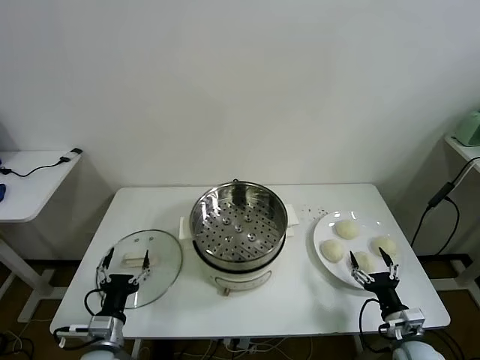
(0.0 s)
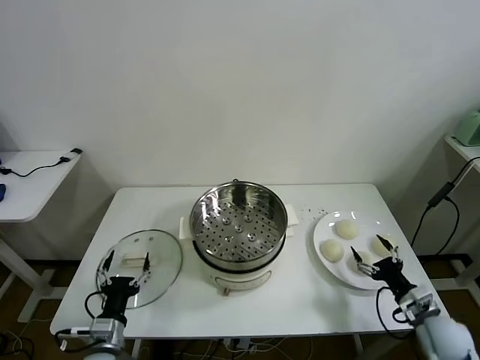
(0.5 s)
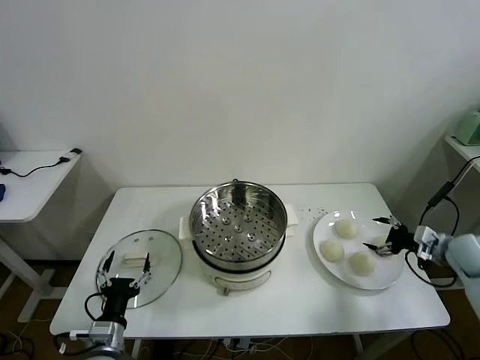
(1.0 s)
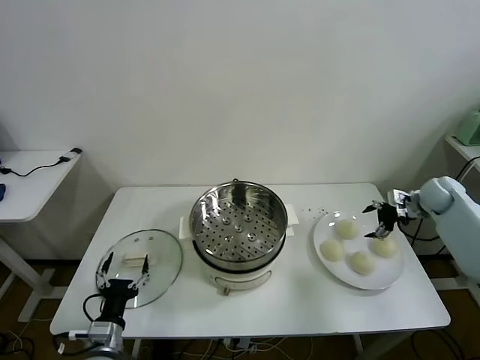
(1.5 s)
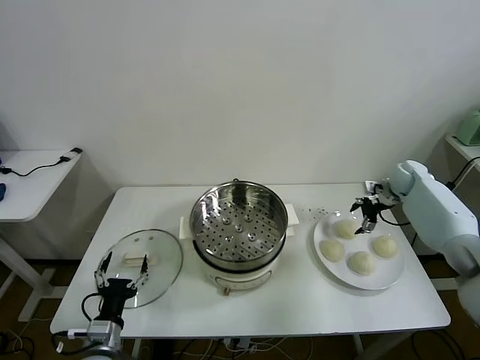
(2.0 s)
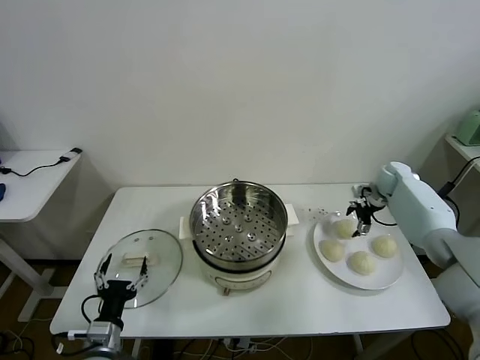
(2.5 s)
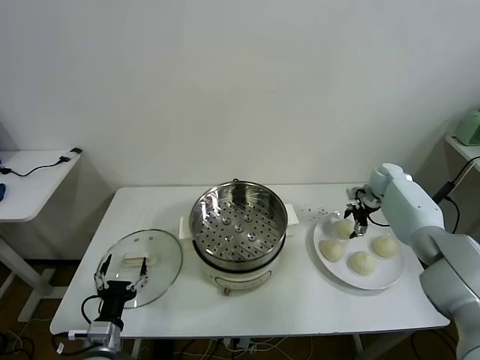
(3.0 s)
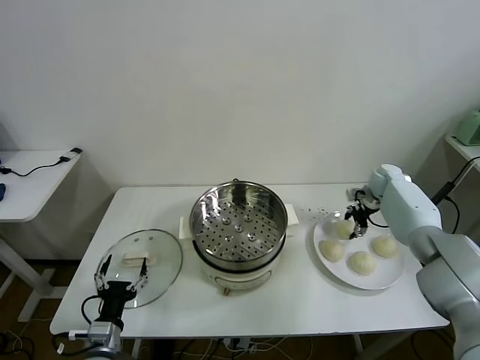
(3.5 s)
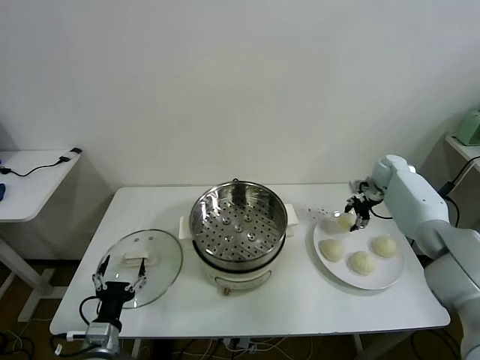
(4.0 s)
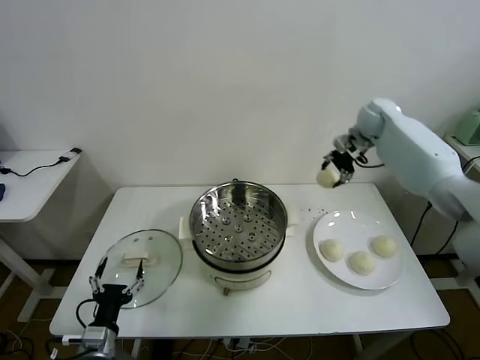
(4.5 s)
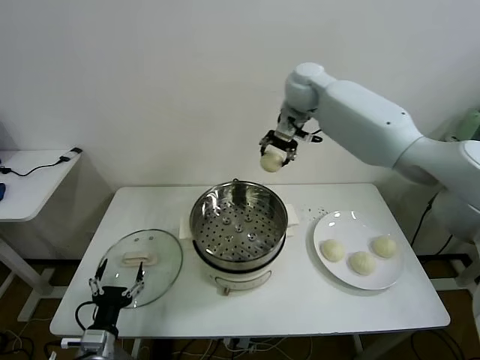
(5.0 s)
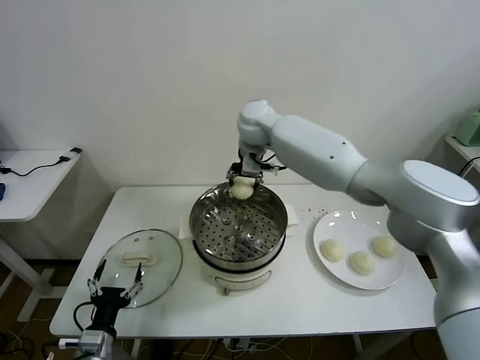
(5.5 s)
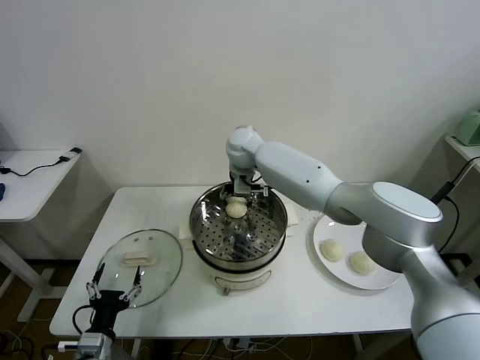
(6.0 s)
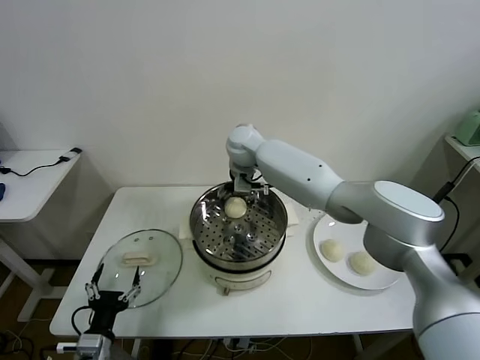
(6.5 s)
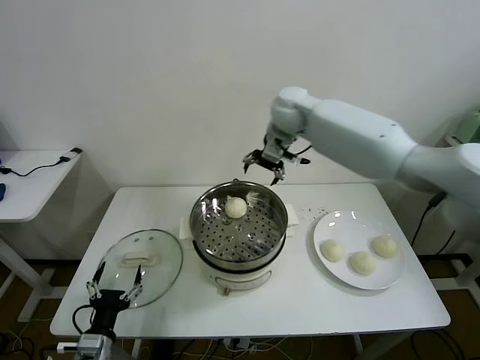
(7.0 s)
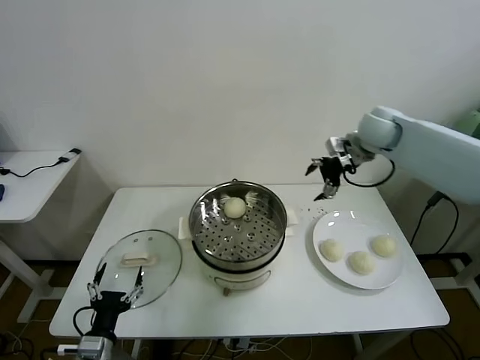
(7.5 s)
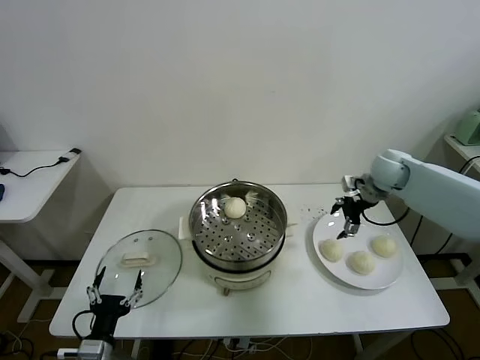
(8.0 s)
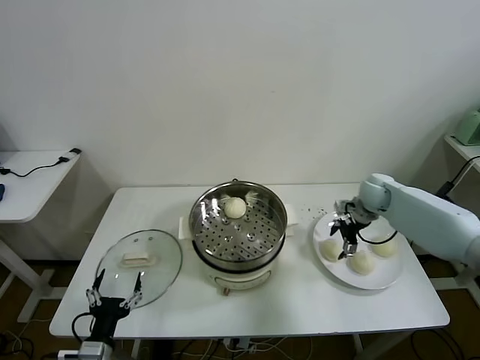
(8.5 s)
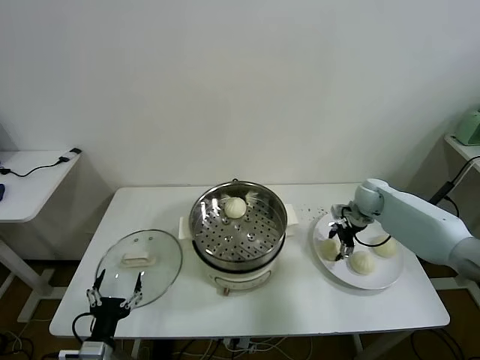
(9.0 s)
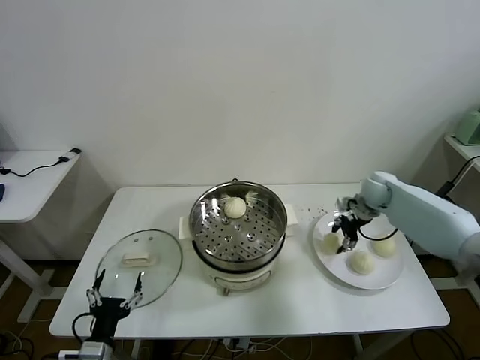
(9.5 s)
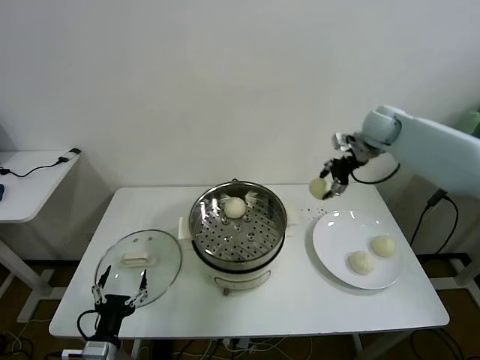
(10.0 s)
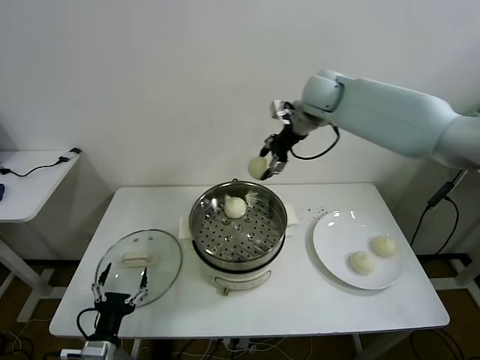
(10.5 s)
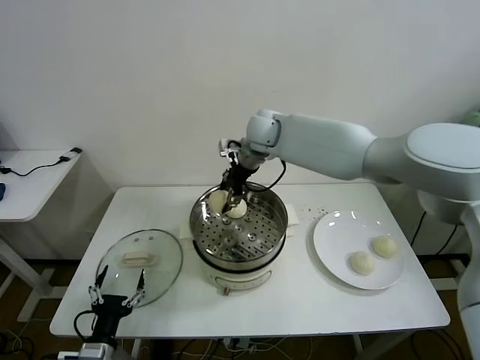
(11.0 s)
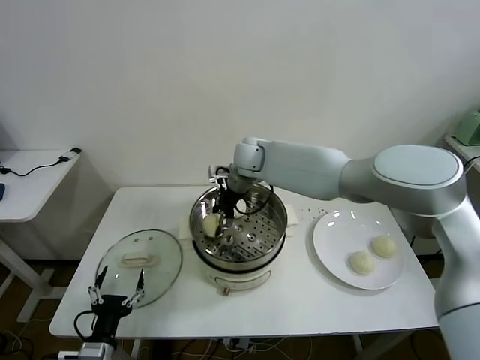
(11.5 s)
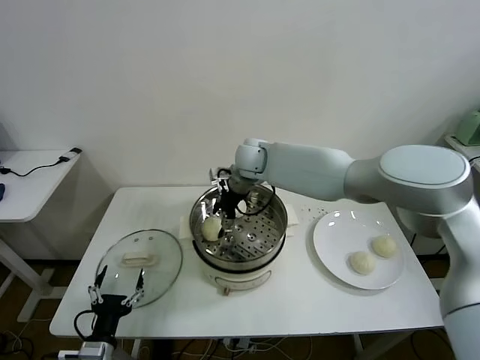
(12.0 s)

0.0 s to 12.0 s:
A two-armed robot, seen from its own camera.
Task of the whole recording: take steamed baozi put them in steamer then cover it.
Step, 0.0 to 3.5 s: Grasp the baozi in the plate with right gripper.
Step, 4.0 to 6.5 s: Place the baozi on the steamer with right gripper.
Step, 7.0 to 9.0 s: Grasp the baozi in the plate with right gripper.
Step, 9.5 to 12.0 s: Place the baozi on the steamer with right gripper.
2.0 to 4.0 s: The right gripper closes up.
4.0 to 6.0 s: The right gripper shifts approximately 40 cm to the left.
6.0 to 8.0 s: The right gripper is displaced to the right by about 35 cm, and opens its fingers.
8.0 to 10.0 s: The right gripper is displaced upward and forward by about 15 cm, and closes up.
10.0 to 12.0 s: The right gripper moves to the left, some 30 cm, and opens up.

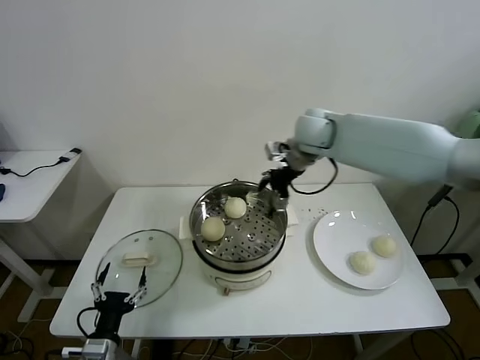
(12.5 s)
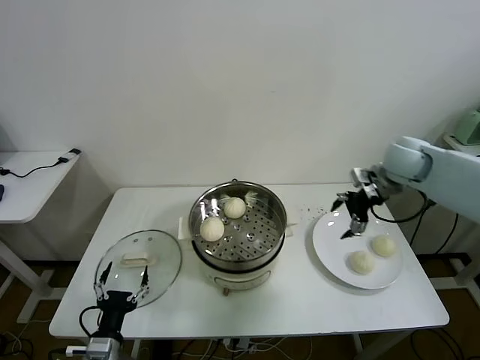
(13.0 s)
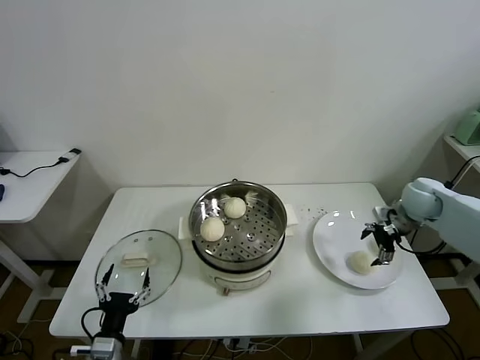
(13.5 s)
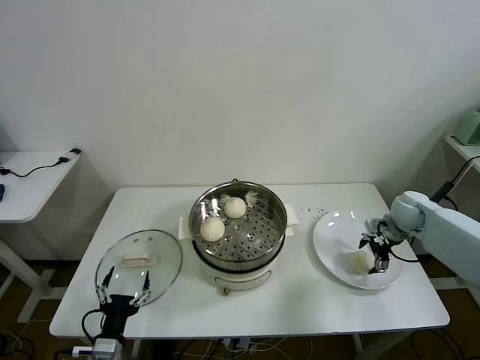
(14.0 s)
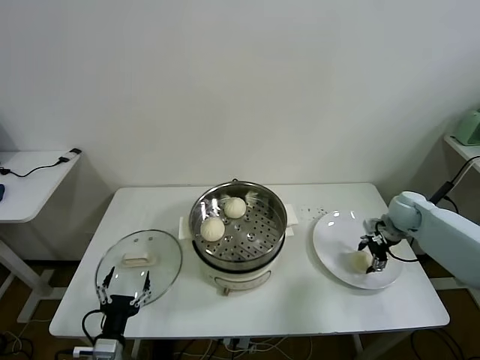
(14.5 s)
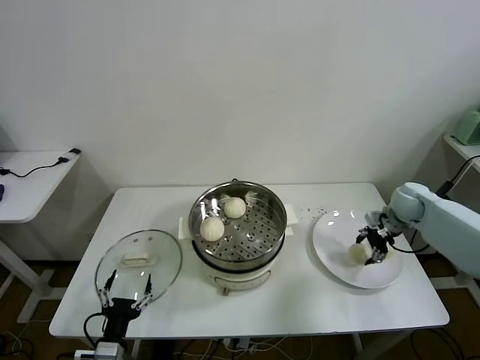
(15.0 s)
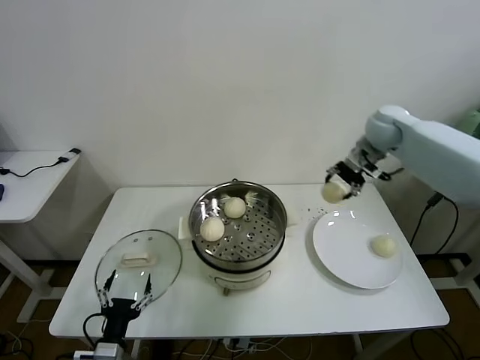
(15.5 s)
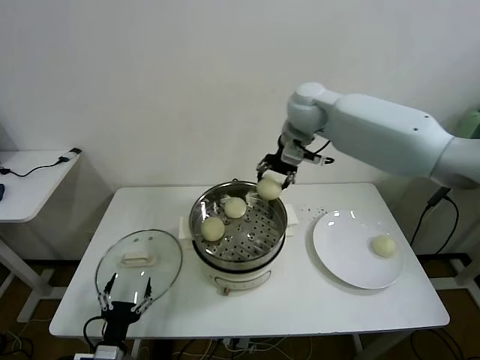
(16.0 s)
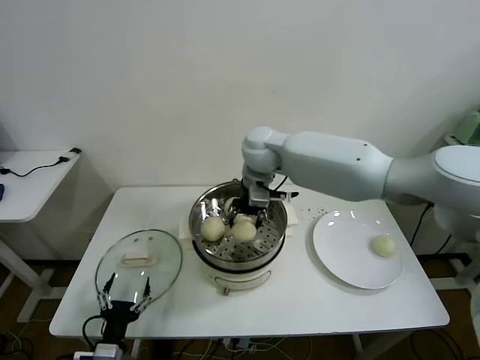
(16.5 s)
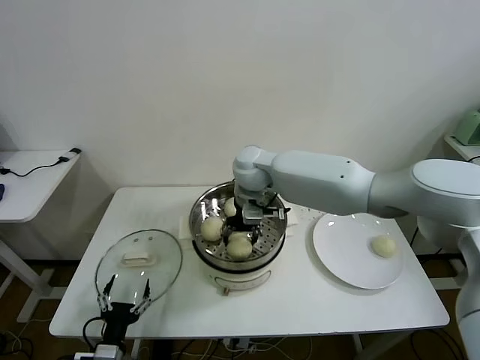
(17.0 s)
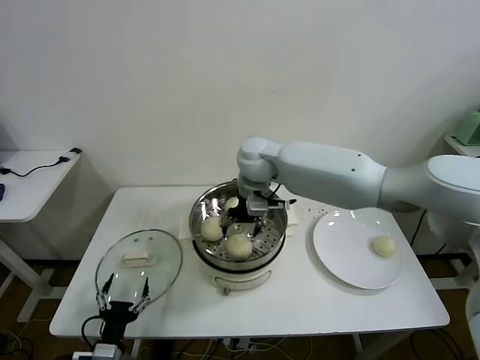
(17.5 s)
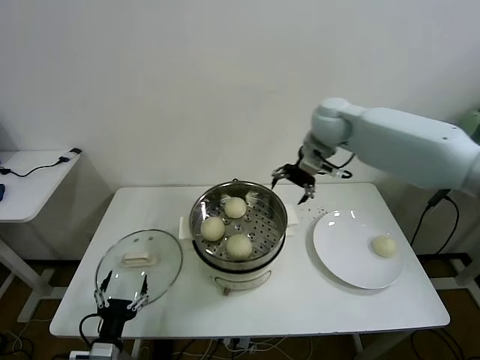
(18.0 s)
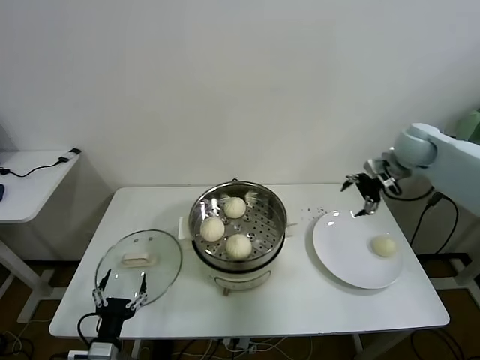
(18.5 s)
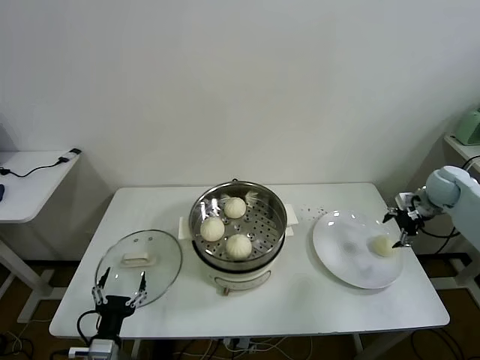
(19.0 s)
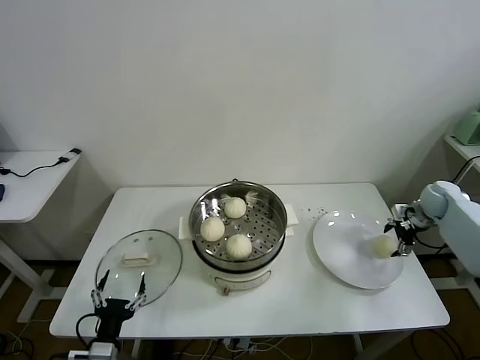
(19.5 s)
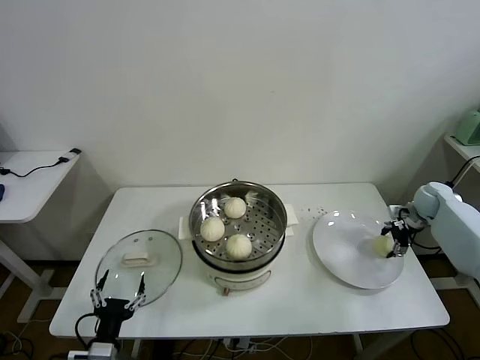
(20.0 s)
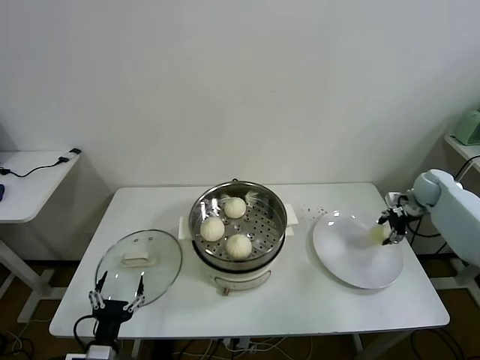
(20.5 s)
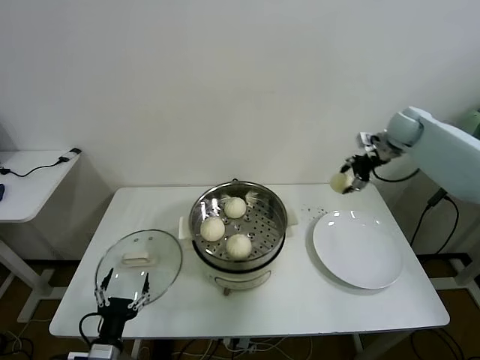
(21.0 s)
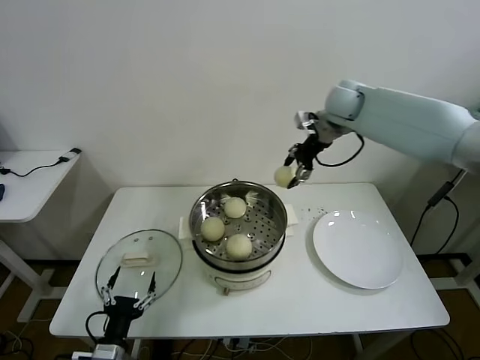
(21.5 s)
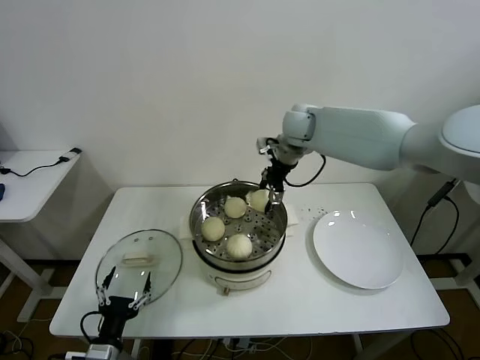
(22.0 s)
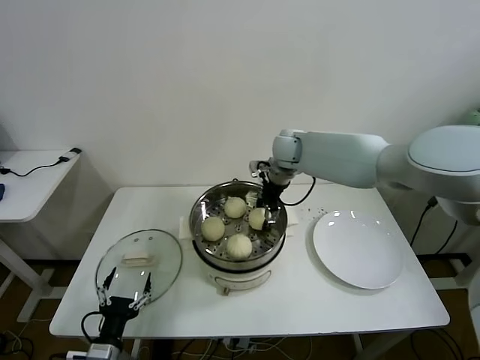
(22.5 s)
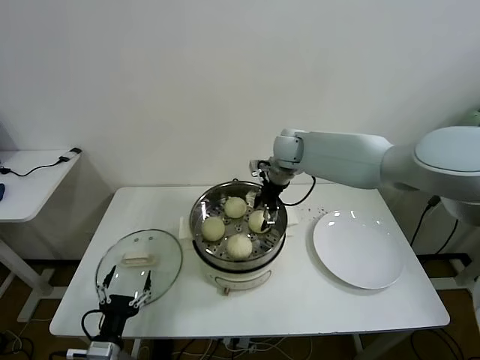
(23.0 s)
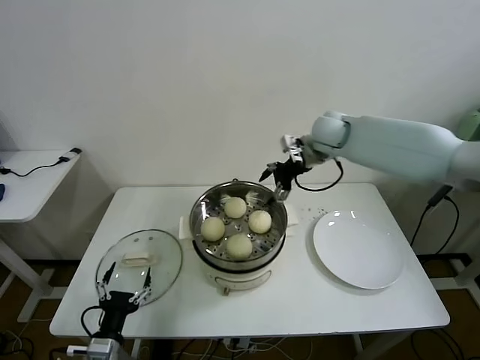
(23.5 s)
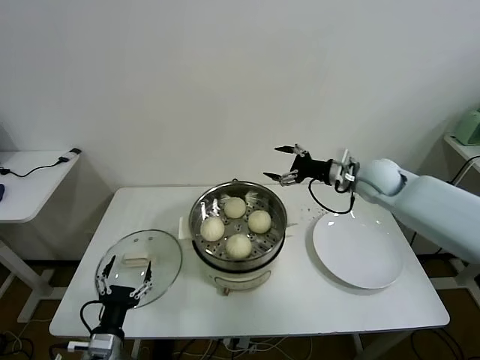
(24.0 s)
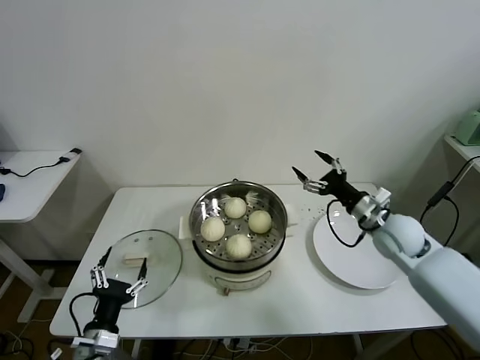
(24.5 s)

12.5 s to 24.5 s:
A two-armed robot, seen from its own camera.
Task of the whole recording: take steamed baozi put them in steamer then cover it.
Step, 12.5 to 14.5 s: Grasp the baozi in the plate with right gripper.
Step, 15.0 to 17.0 s: Place the baozi on the steamer with right gripper.
Step, 17.5 to 20.0 s: Grasp the baozi in the plate with right gripper.
Step, 20.5 to 23.0 s: Place the baozi on the steamer with right gripper.
12.5 to 14.5 s: The right gripper travels to the right and downward by roughly 35 cm, and closes its fingers.
14.5 to 16.5 s: The right gripper goes roughly 40 cm to the left and upward.
16.5 to 18.5 s: The right gripper is displaced to the right by approximately 35 cm, and opens up.
18.5 to 20.5 s: The right gripper shifts some 15 cm downward and to the right, and closes.
20.5 to 22.5 s: The right gripper goes approximately 40 cm to the left.
22.5 to 24.5 s: The right gripper goes roughly 30 cm to the right, backward and downward, and opens.

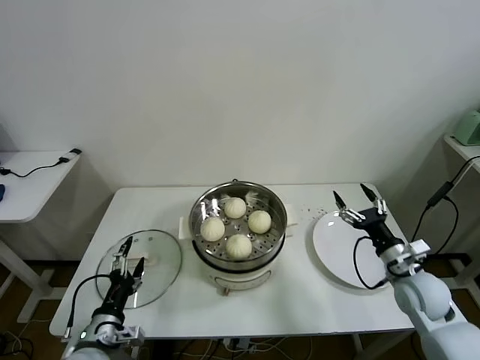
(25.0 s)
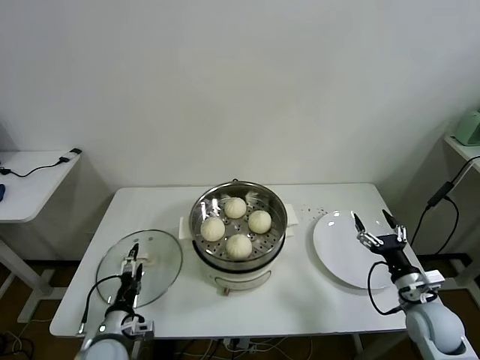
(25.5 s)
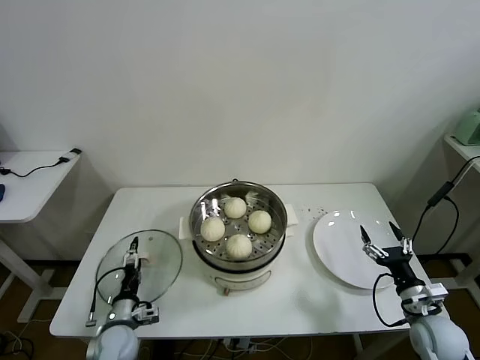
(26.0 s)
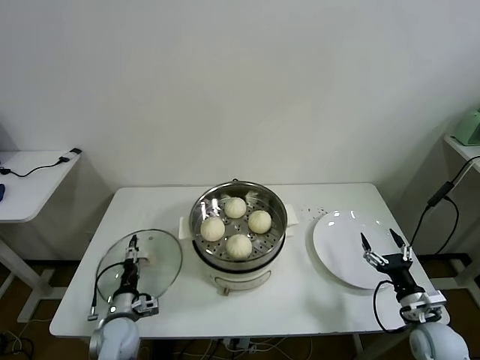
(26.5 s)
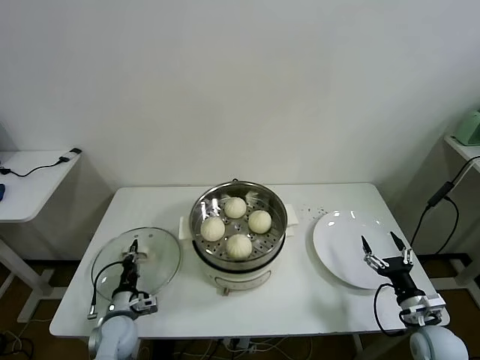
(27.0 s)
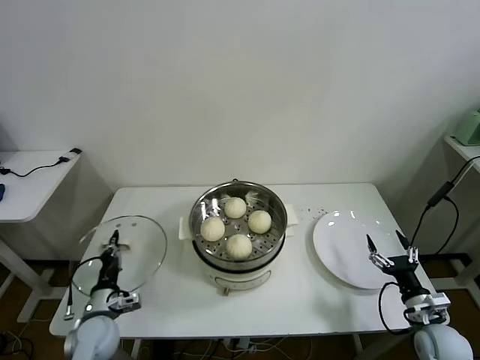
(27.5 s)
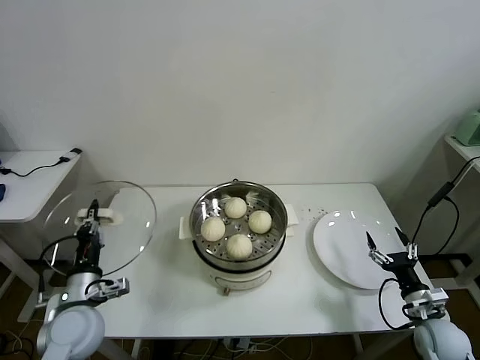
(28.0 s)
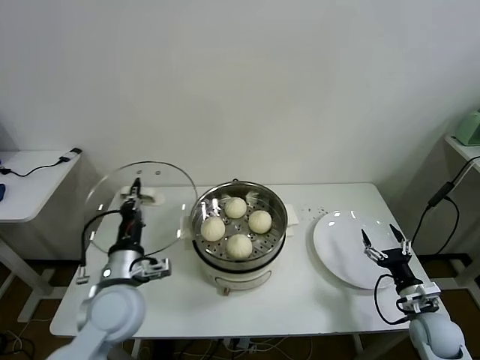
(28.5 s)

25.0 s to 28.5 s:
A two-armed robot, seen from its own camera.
Task of the whole recording: take steamed baozi put them in steamer then cover it.
25.0 to 27.0 s: The left gripper heads downward and forward, covering roughly 15 cm, and closes. Meanwhile the right gripper moves downward and backward, approximately 15 cm.
27.0 to 28.5 s: The left gripper goes approximately 20 cm upward.
